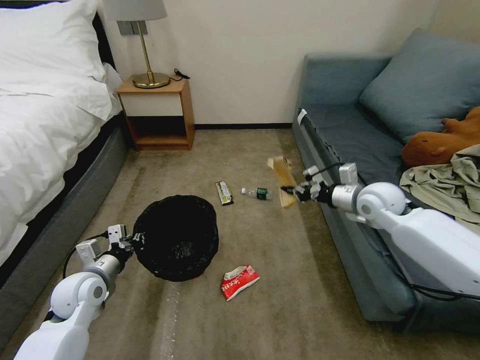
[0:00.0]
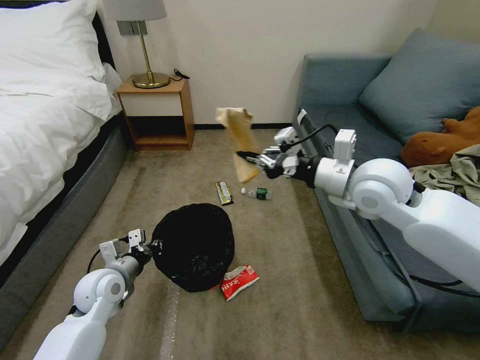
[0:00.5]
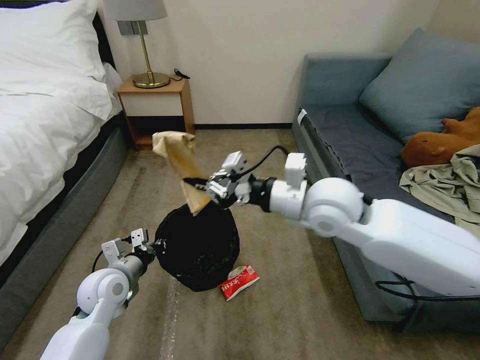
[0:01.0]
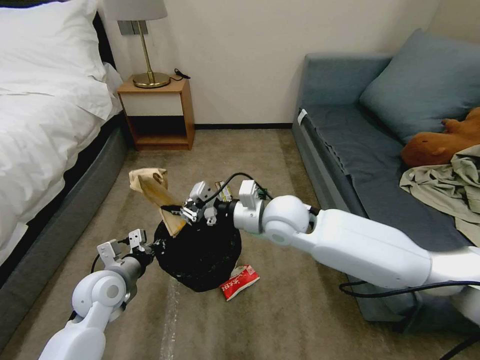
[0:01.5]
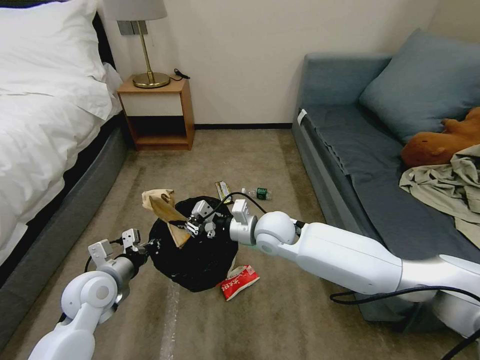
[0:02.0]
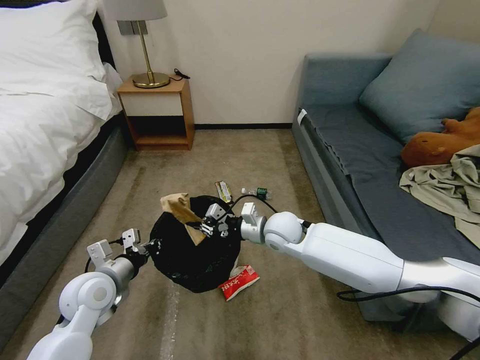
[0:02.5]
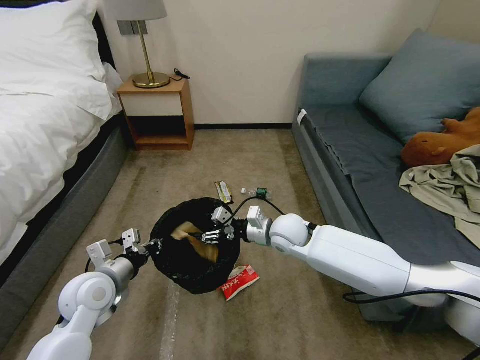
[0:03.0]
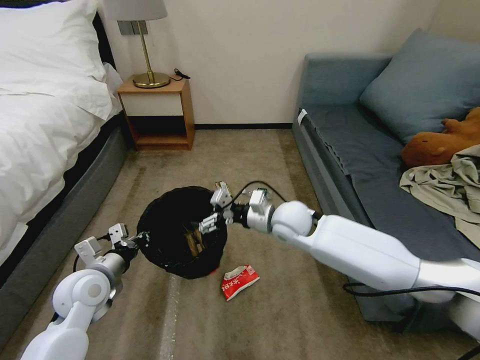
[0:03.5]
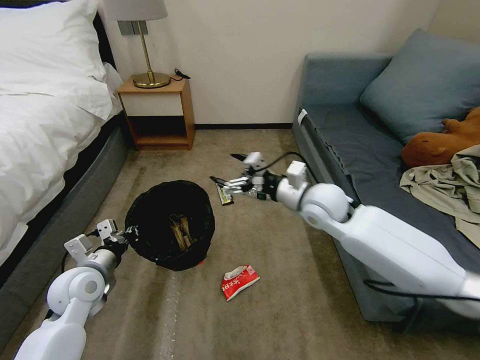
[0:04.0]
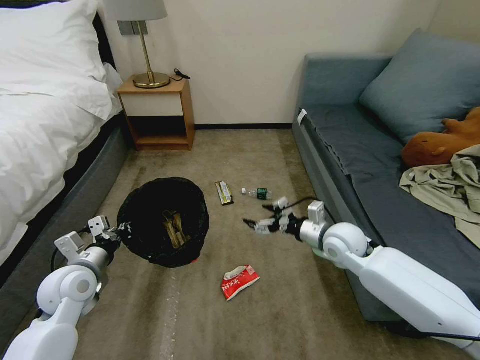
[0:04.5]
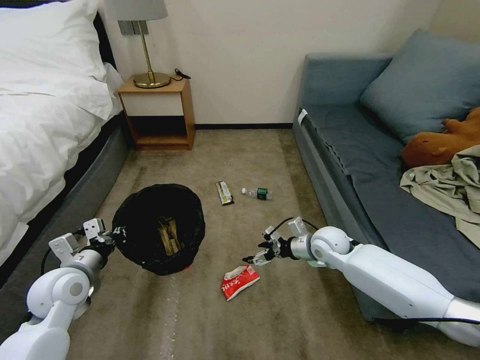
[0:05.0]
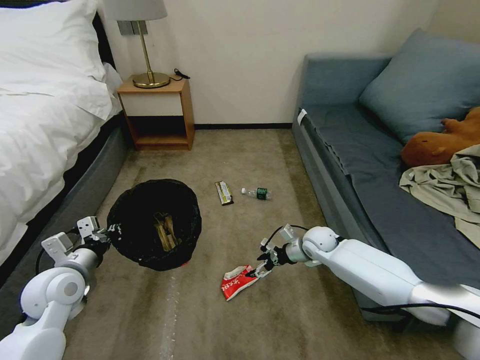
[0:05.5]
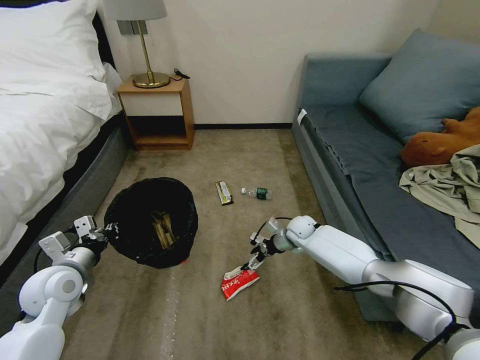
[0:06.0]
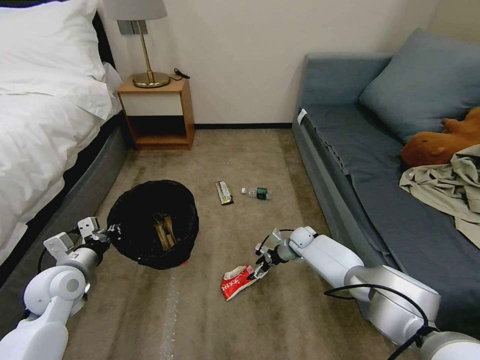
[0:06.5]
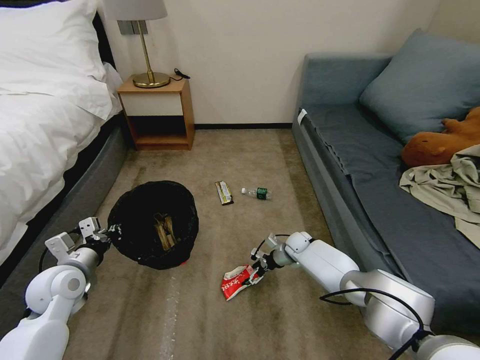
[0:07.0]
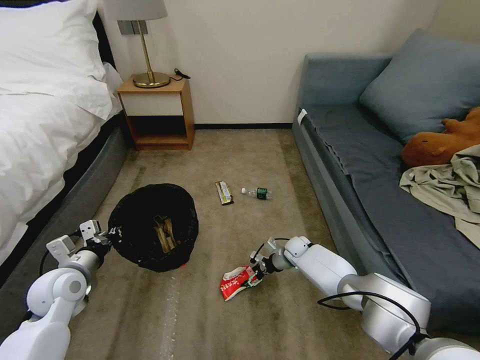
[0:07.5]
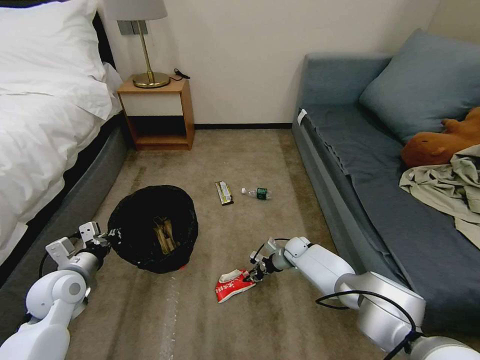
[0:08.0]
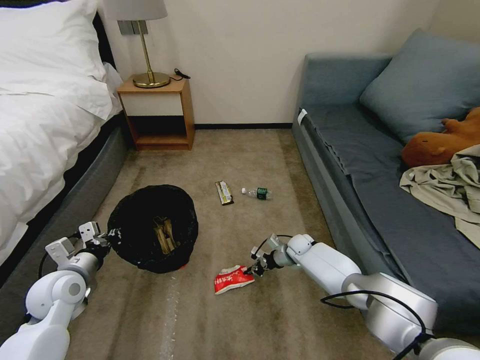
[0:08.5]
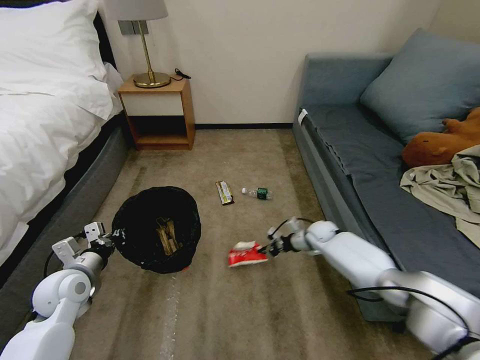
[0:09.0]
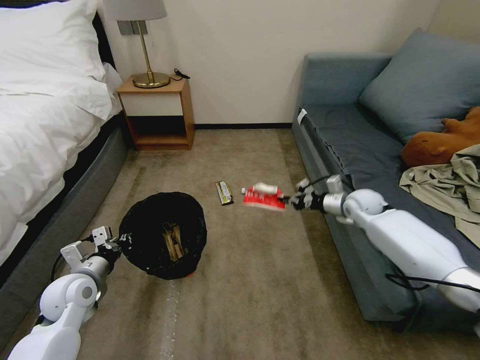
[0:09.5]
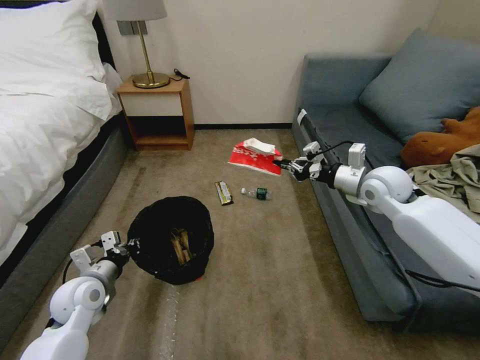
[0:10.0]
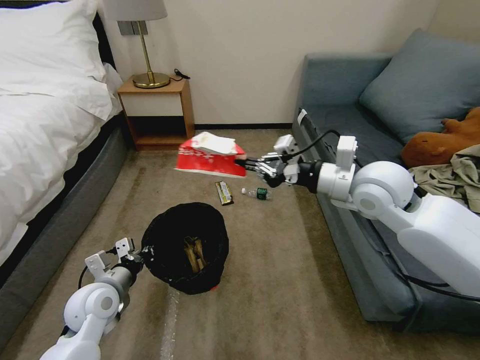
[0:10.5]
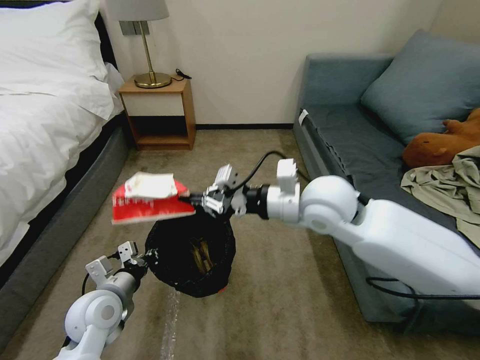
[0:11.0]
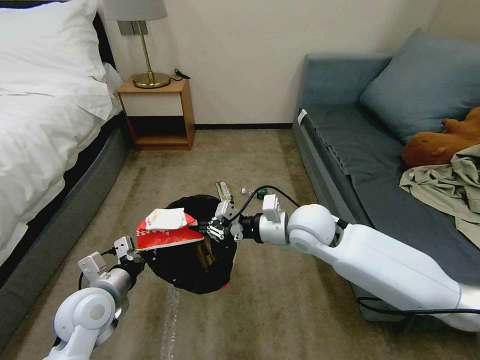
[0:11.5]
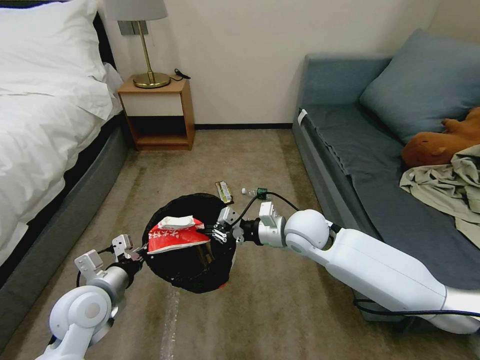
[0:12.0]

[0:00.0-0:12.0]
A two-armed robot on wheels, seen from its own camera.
Task of the whole recording: Pick up the trash bin, then pick up the garbage on the floor and place it into the trash bin.
0:00.0 to 0:02.0: The right gripper moves to the left, about 25 cm.
0:02.0 to 0:04.0: The right gripper heads to the right and upward, covering approximately 15 cm, and opens.
0:04.0 to 0:06.0: The right gripper shifts roughly 25 cm downward and forward.
0:06.0 to 0:08.0: The right gripper is displaced downward by about 10 cm, and closes up.
0:08.0 to 0:10.0: The right gripper goes some 35 cm upward.
0:10.0 to 0:12.0: The right gripper shifts approximately 20 cm to the left and downward. The left gripper ends up roughly 10 cm from where it was.

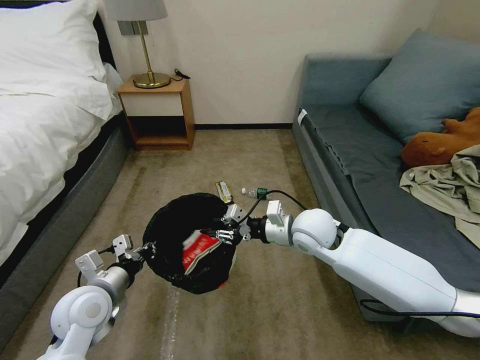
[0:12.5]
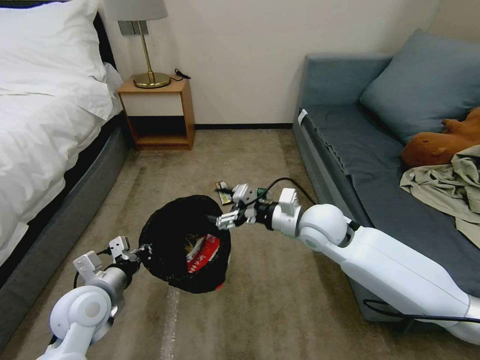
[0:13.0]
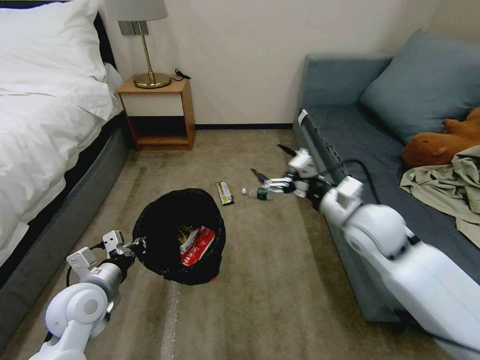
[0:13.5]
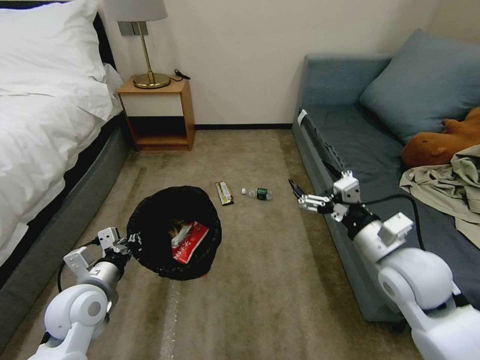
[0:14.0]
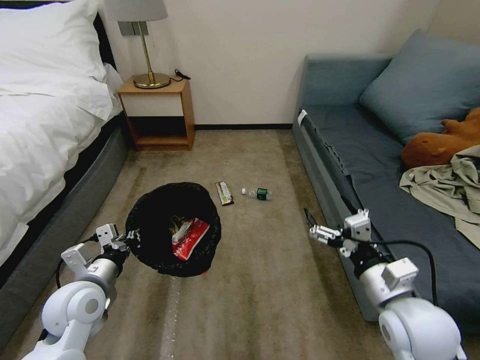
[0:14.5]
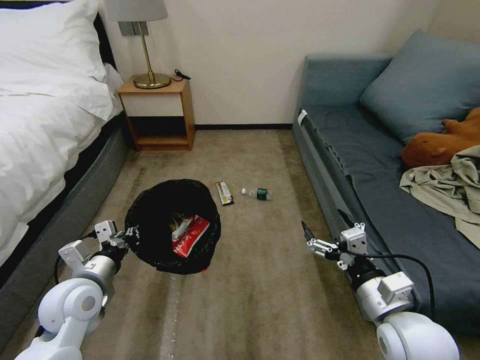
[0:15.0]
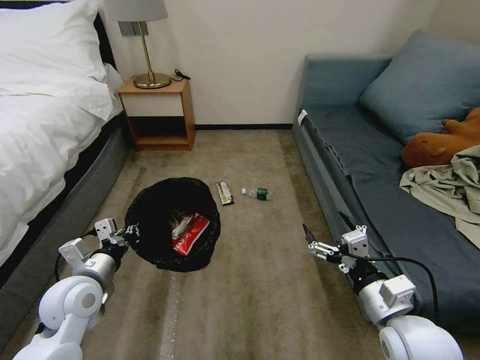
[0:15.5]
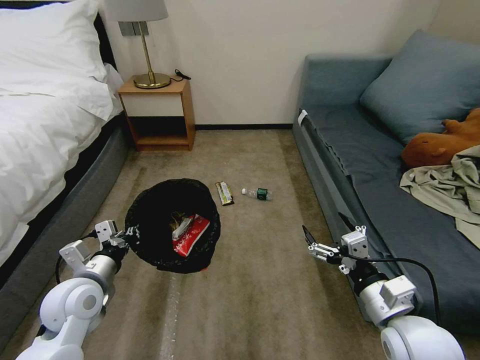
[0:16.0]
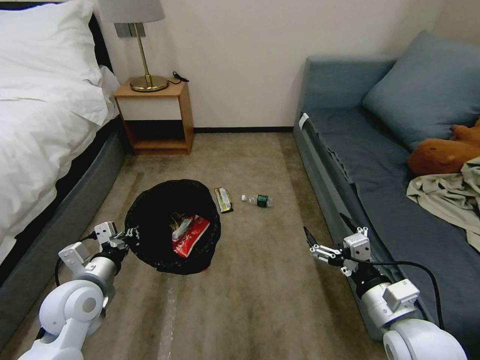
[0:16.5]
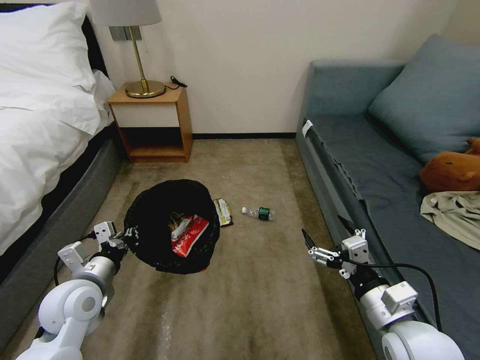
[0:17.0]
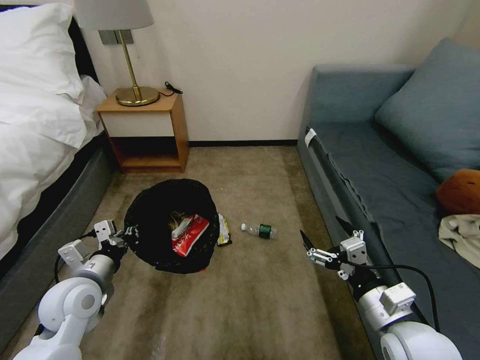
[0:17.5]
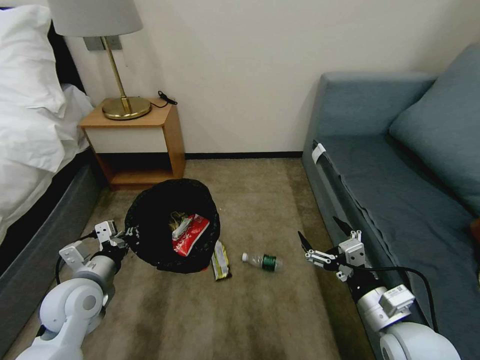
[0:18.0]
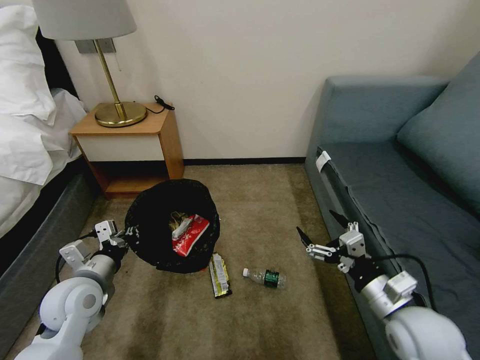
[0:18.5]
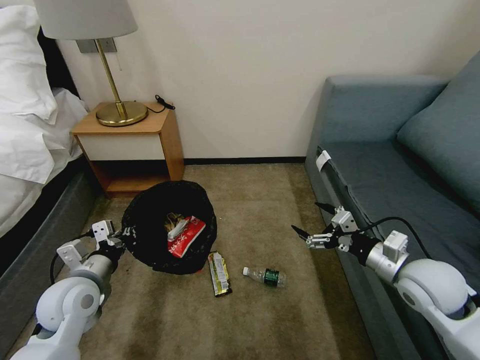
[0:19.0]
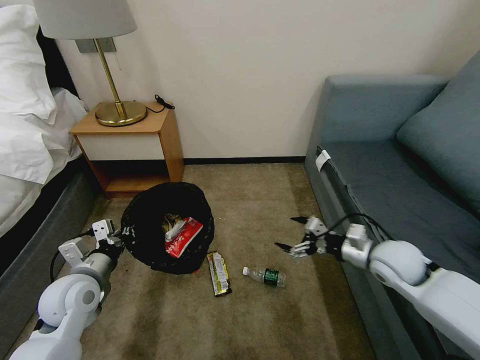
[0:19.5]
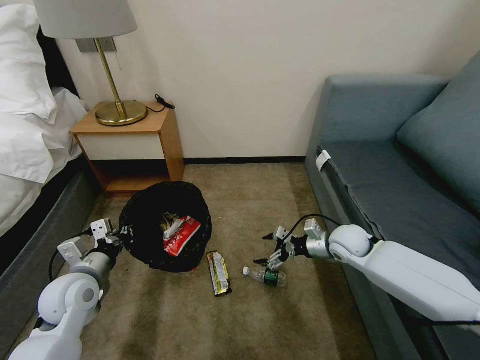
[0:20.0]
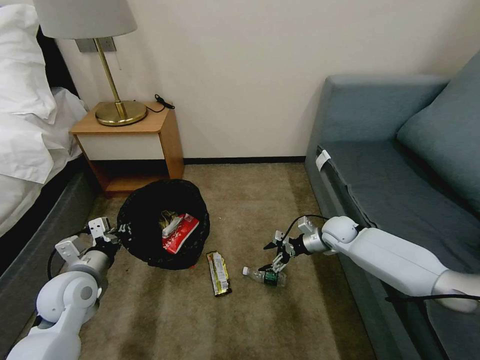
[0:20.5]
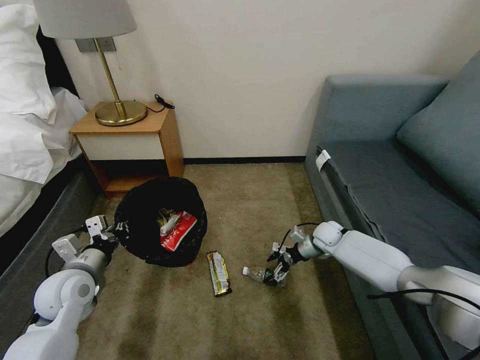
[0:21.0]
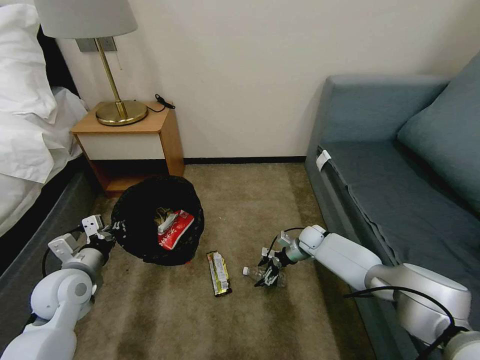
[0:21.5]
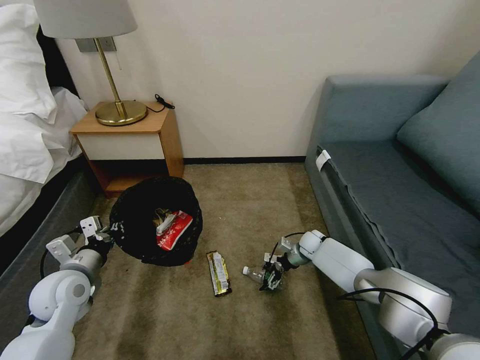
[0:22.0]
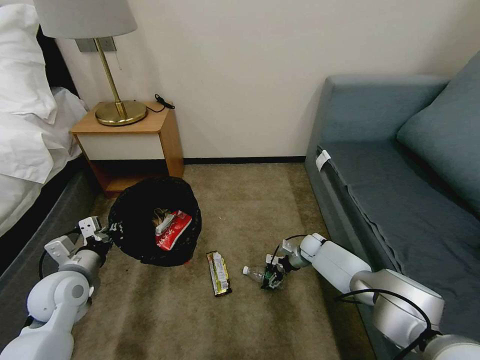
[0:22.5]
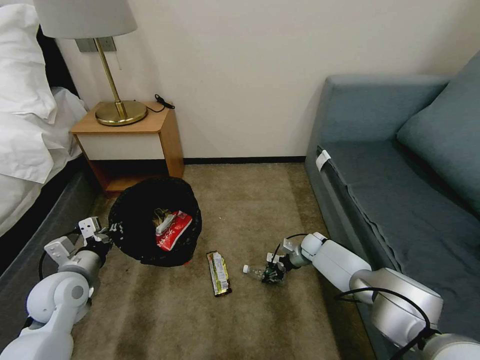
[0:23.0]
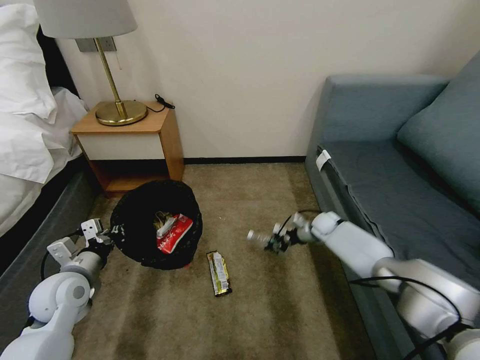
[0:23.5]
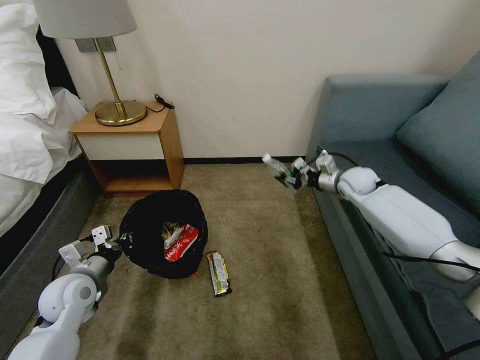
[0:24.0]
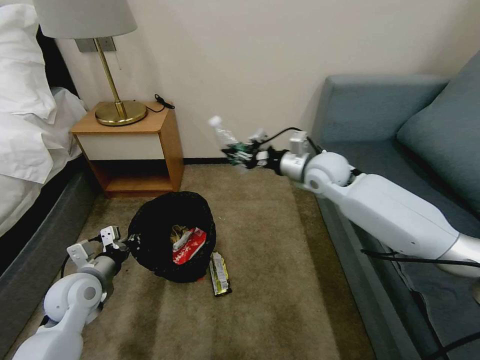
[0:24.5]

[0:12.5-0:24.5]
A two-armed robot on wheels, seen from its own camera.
Task of the whole recording: Pick up the trash bin, then pick up the garbage on the floor and place it into the trash bin.
0:12.5 to 0:14.5: The right gripper moves backward and to the right, approximately 25 cm, and opens.
0:14.5 to 0:16.5: The grippers stay close to where they were, moving slightly.
0:18.5 to 0:20.5: The right gripper moves forward, about 30 cm.
0:20.5 to 0:22.5: The right gripper goes some 15 cm downward.
0:22.5 to 0:24.5: The right gripper heads upward, covering some 35 cm, and closes up.

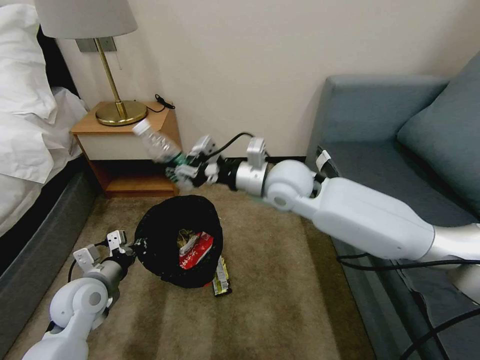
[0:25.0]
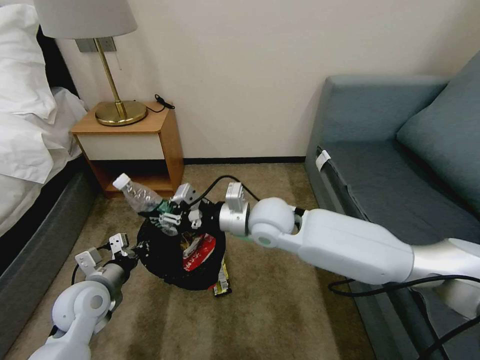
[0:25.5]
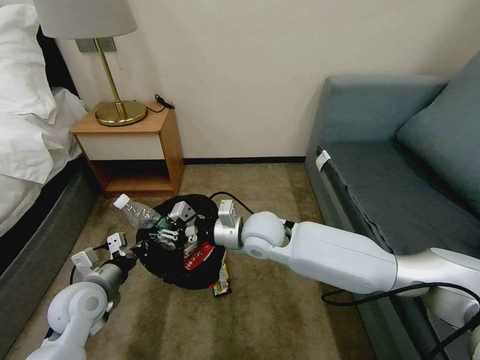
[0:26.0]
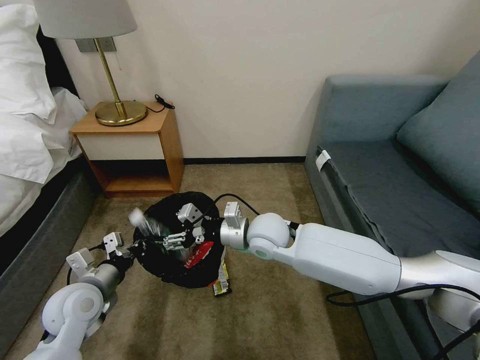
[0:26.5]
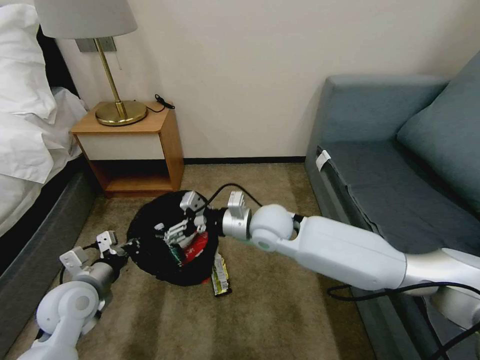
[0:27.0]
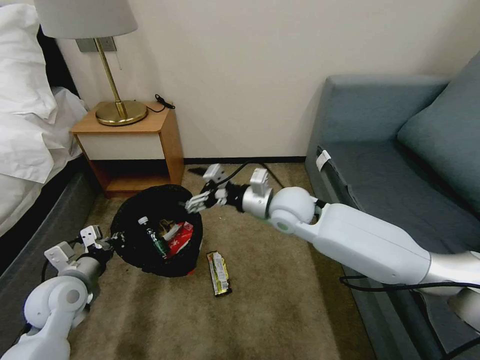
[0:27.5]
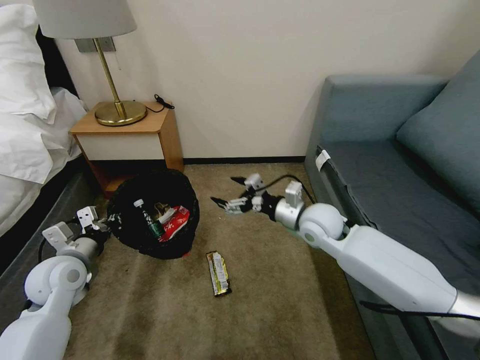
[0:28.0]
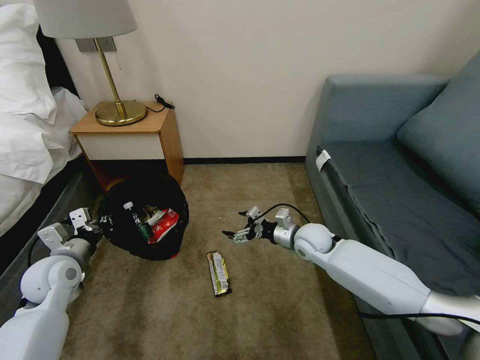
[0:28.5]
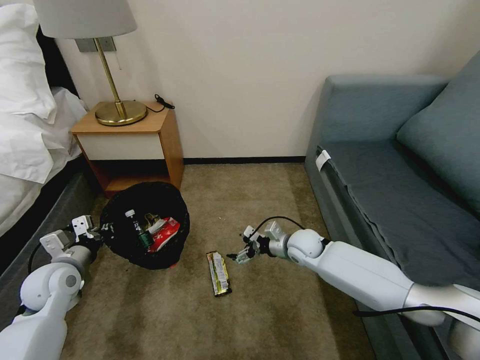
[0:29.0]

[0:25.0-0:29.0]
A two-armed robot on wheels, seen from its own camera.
Task of the whole recording: Pick up the trash bin, then pick up the garbage on the floor and place it into the trash bin.
0:25.0 to 0:27.0: The right gripper heads downward, covering about 10 cm, and opens.
0:27.0 to 0:29.0: The left gripper shifts about 5 cm to the left. Meanwhile the right gripper travels downward and to the right by about 20 cm.
